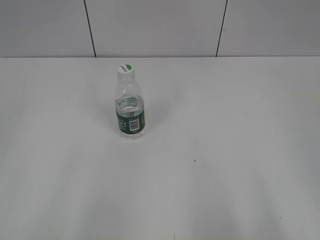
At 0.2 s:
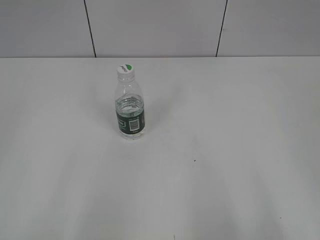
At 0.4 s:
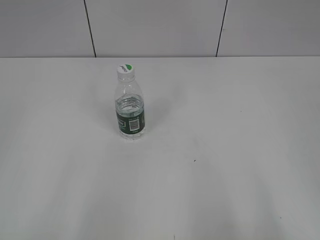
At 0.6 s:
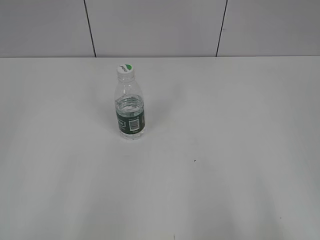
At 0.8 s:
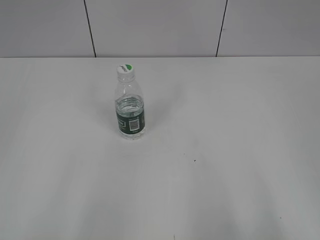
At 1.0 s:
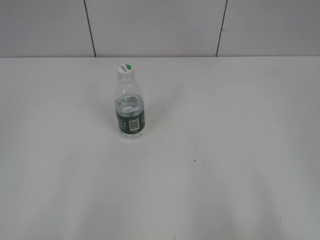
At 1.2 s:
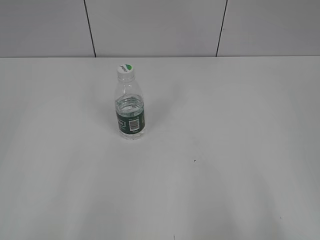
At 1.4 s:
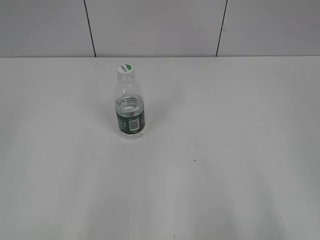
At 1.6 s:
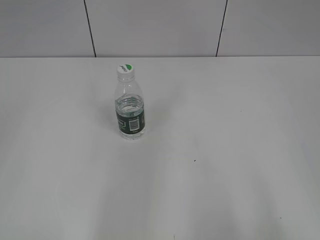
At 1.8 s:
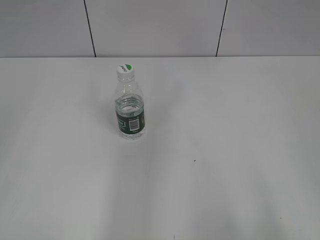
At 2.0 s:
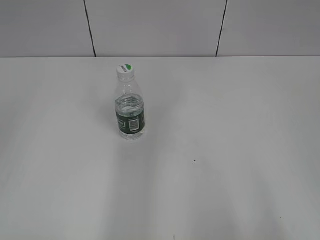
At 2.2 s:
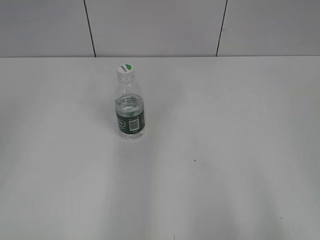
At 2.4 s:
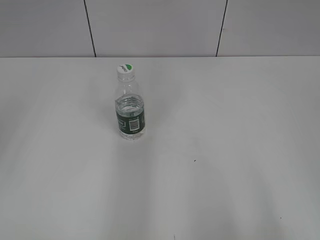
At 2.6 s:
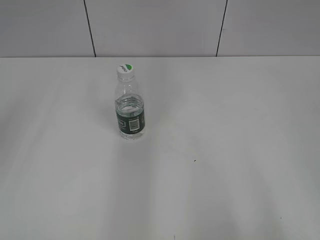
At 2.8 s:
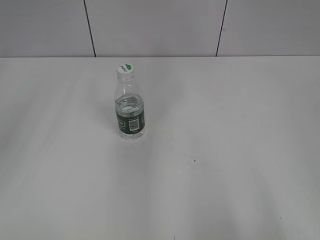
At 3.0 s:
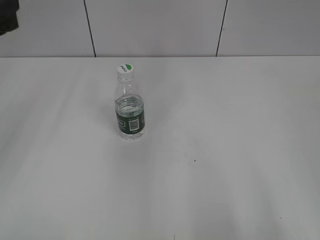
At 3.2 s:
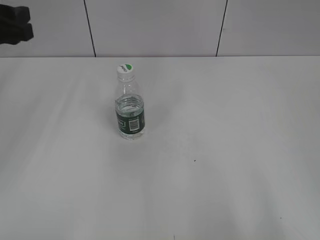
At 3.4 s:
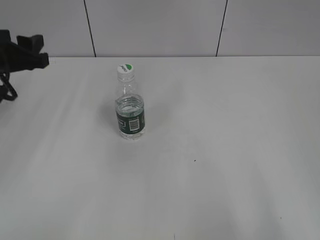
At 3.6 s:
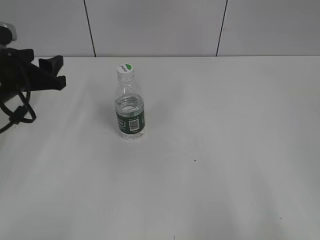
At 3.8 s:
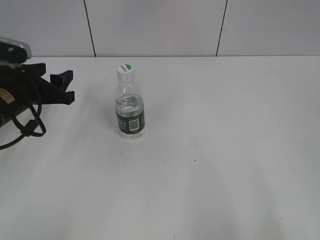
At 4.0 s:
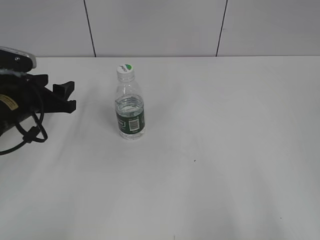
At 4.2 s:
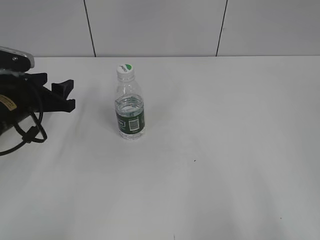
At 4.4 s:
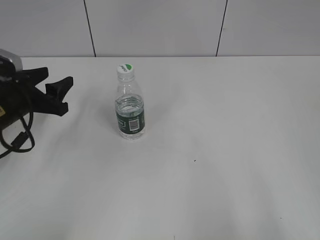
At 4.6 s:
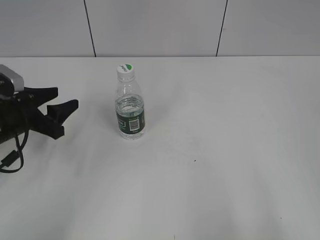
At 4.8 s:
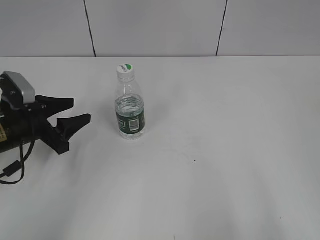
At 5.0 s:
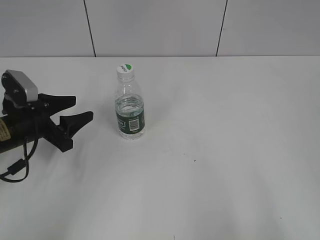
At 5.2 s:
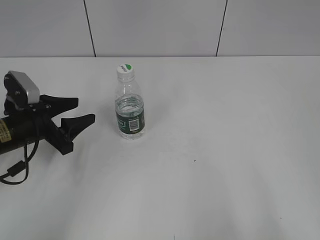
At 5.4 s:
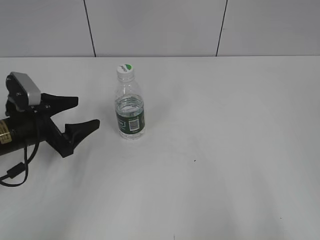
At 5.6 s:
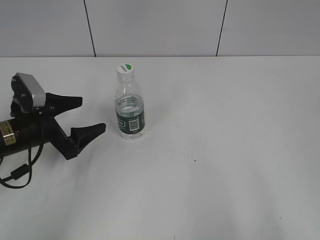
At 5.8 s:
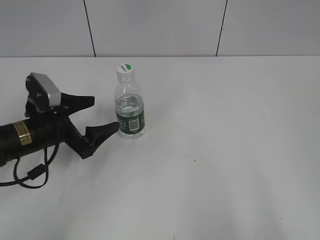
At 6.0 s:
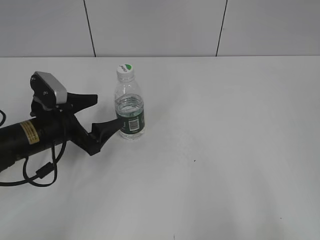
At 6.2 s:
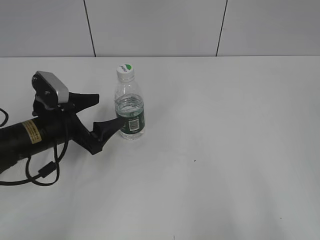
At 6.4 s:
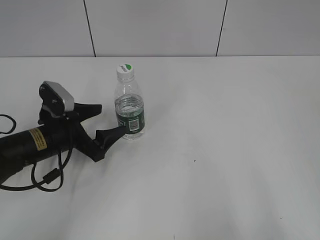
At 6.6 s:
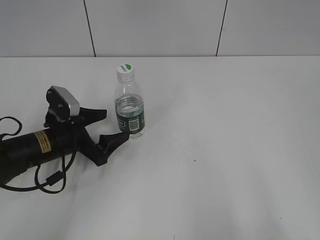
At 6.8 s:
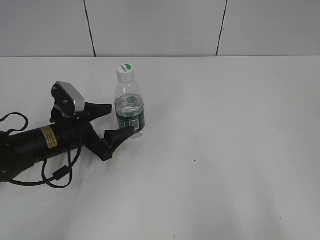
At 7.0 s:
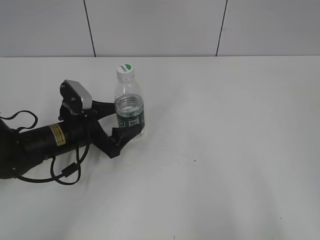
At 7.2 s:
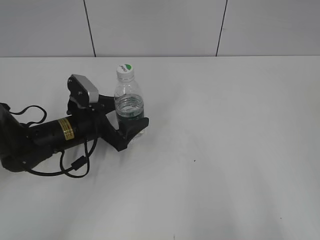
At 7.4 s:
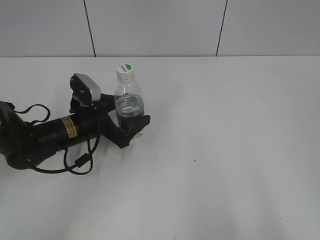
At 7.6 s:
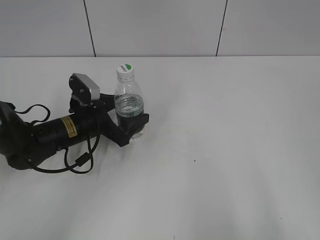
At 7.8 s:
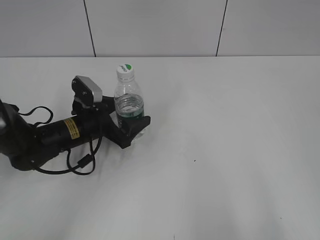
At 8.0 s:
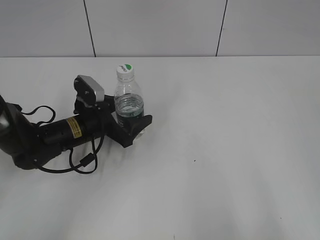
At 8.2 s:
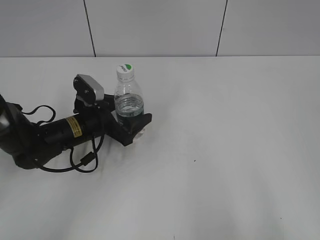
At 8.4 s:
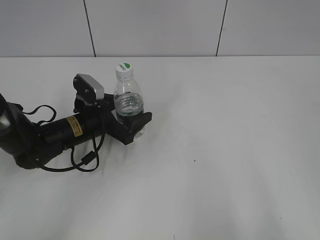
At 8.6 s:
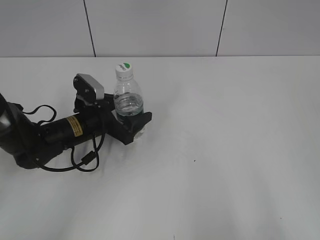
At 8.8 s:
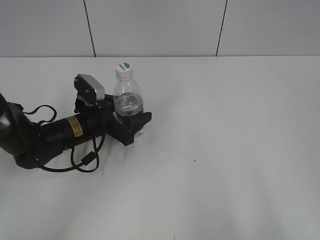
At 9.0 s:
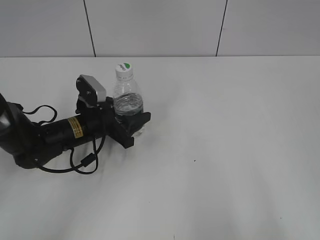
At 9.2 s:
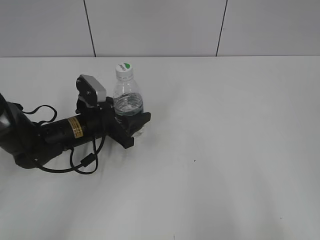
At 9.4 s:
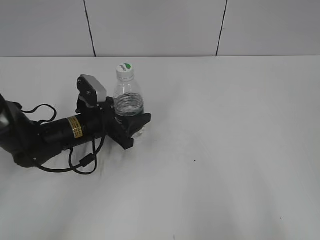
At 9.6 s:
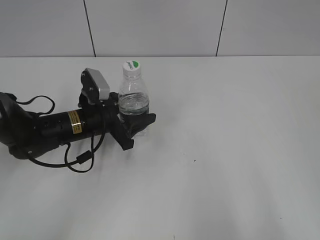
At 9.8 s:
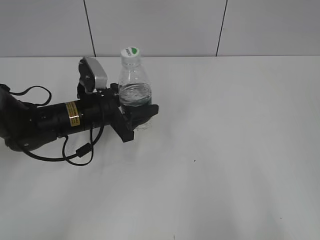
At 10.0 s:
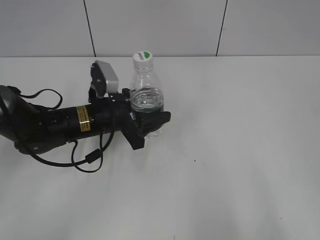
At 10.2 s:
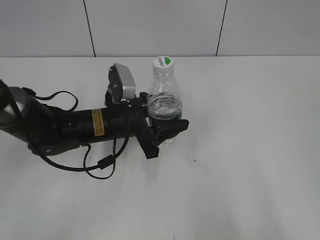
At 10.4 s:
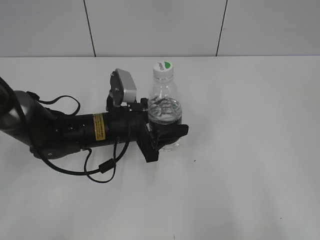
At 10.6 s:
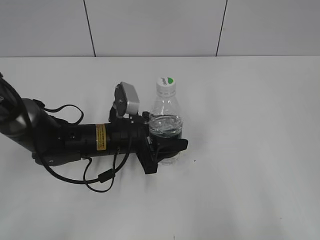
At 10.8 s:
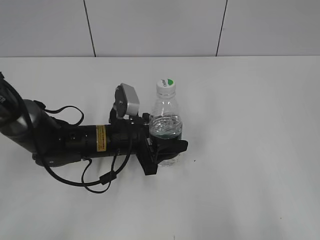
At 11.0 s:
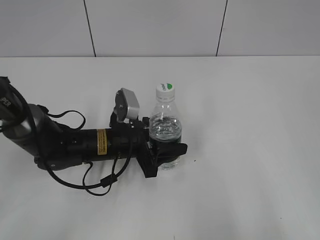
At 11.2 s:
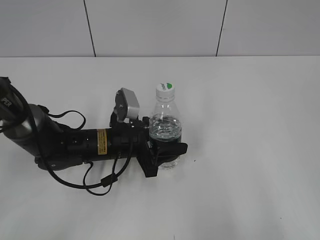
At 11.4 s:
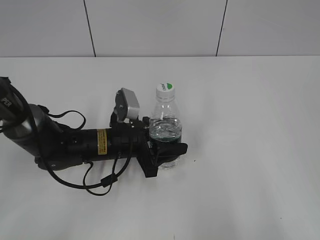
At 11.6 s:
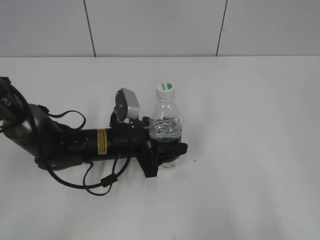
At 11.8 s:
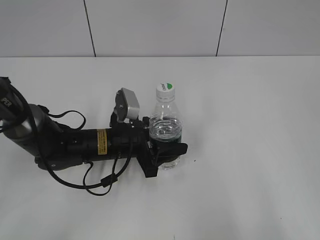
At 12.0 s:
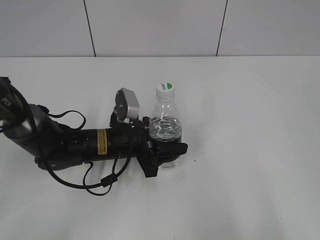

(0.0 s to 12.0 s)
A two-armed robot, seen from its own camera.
Step, 0.0 s - 9.4 s: Grasp the bottle and move it to the center of the table with the left gripper.
1.6 s - 3.0 s: The left gripper heads forward, covering roughly 25 cm.
3.0 s - 4.4 s: The left gripper shifts some 15 cm downward.
4.4 s - 6.0 s: The left gripper is displaced to the right by some 5 cm, and opens its fingers.
6.0 s - 7.6 s: The left gripper changes place by approximately 5 cm.
7.6 s - 9.0 s: The left gripper closes up.
9.0 s - 10.4 s: The left gripper goes about 5 cm to the right.
10.4 s - 12.0 s: The grippers make only small movements.

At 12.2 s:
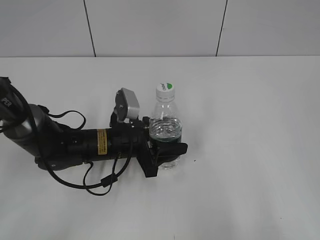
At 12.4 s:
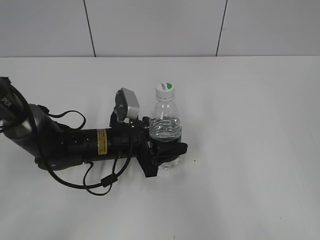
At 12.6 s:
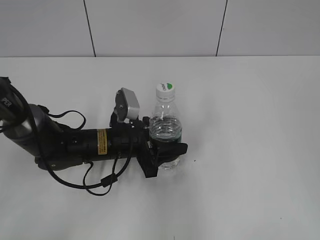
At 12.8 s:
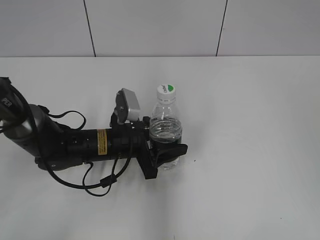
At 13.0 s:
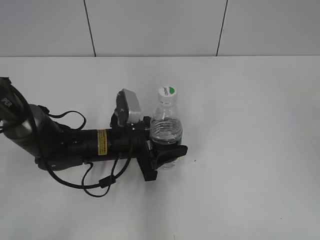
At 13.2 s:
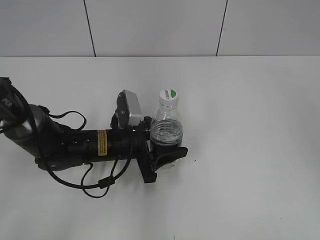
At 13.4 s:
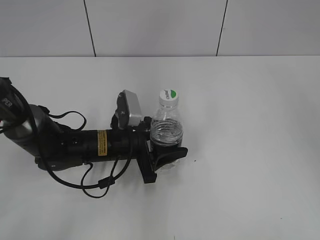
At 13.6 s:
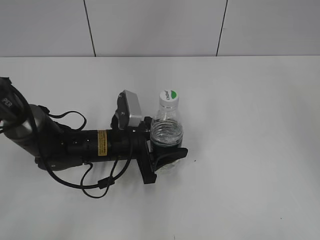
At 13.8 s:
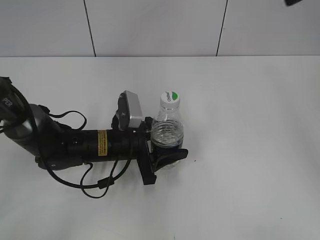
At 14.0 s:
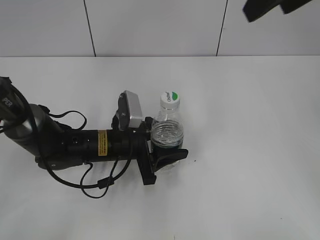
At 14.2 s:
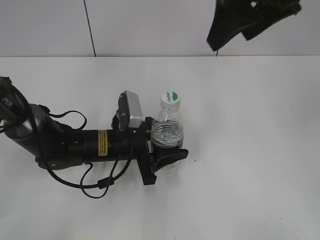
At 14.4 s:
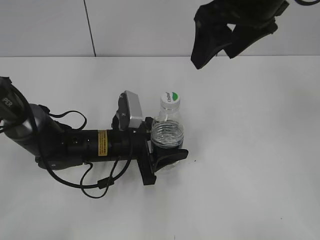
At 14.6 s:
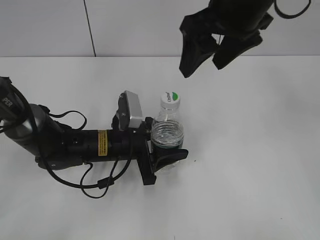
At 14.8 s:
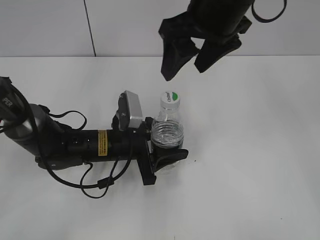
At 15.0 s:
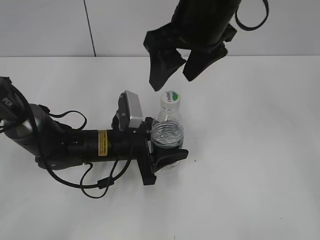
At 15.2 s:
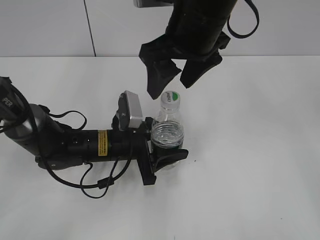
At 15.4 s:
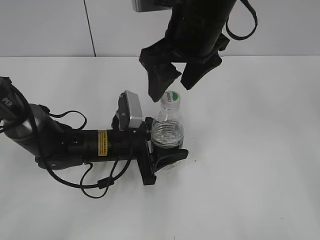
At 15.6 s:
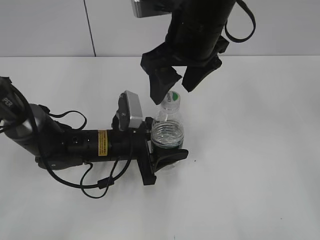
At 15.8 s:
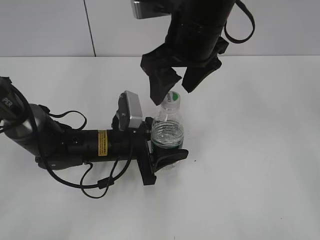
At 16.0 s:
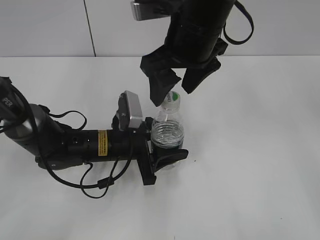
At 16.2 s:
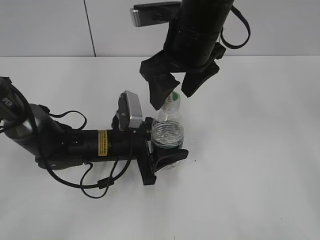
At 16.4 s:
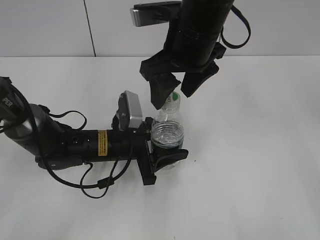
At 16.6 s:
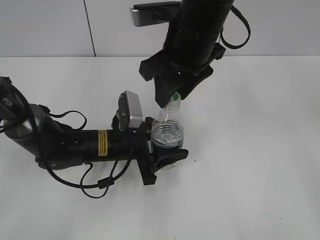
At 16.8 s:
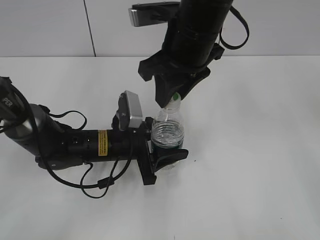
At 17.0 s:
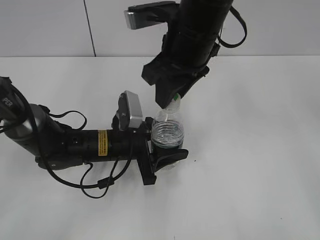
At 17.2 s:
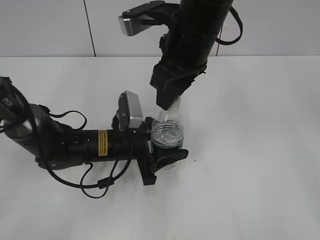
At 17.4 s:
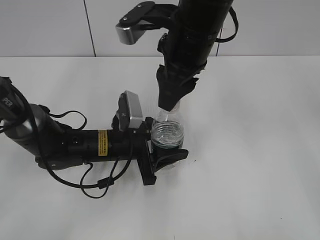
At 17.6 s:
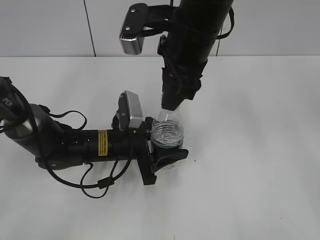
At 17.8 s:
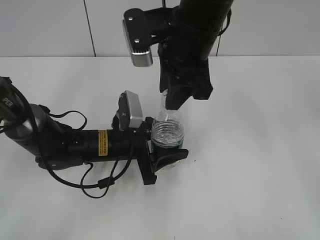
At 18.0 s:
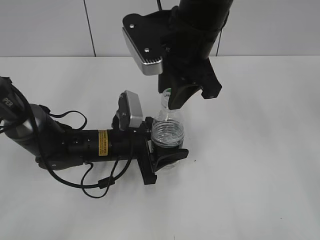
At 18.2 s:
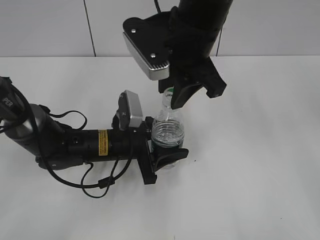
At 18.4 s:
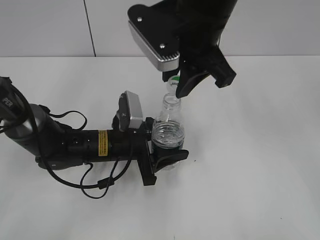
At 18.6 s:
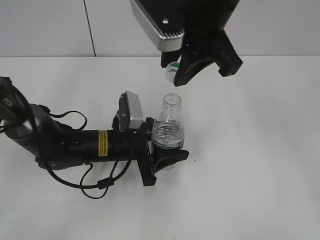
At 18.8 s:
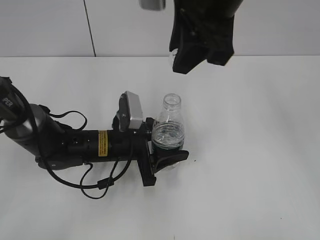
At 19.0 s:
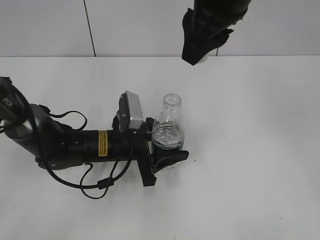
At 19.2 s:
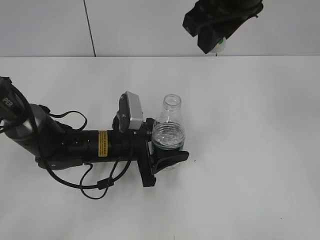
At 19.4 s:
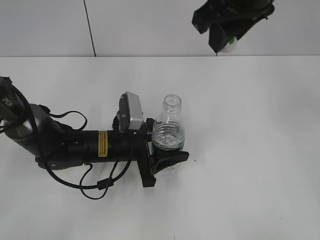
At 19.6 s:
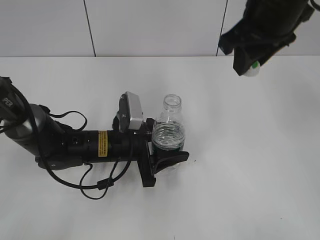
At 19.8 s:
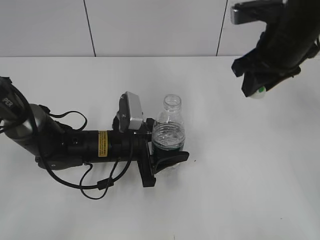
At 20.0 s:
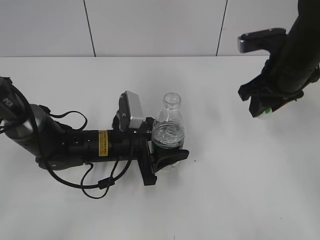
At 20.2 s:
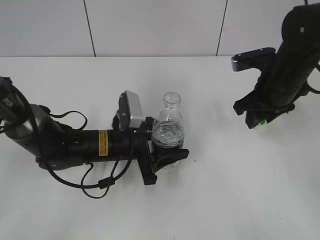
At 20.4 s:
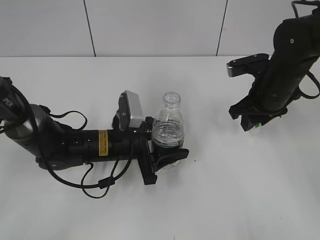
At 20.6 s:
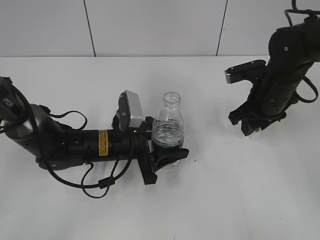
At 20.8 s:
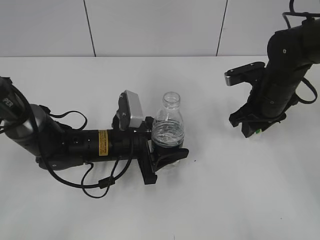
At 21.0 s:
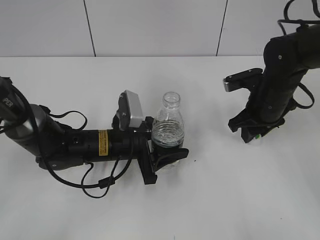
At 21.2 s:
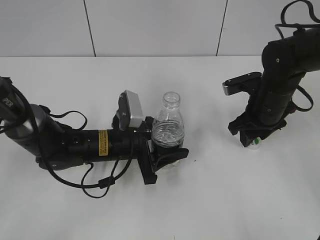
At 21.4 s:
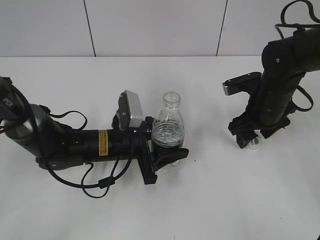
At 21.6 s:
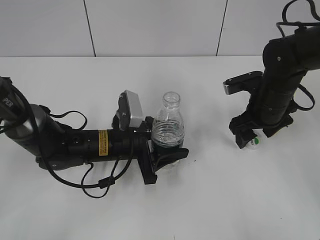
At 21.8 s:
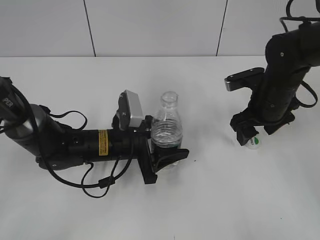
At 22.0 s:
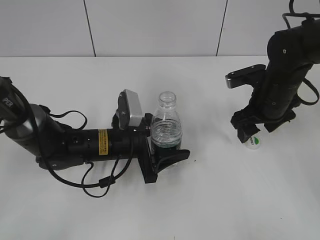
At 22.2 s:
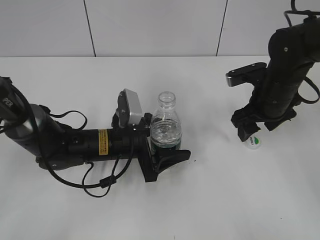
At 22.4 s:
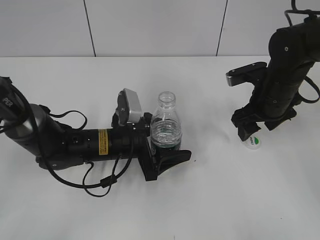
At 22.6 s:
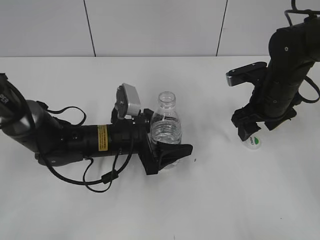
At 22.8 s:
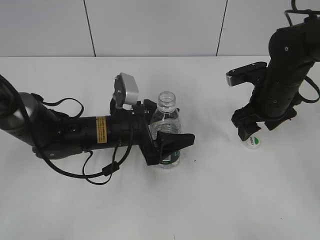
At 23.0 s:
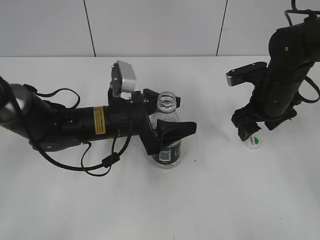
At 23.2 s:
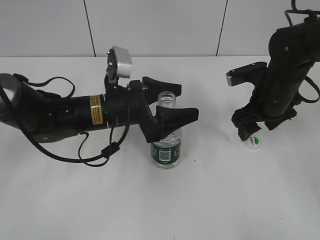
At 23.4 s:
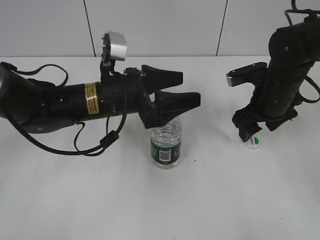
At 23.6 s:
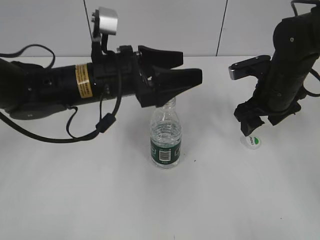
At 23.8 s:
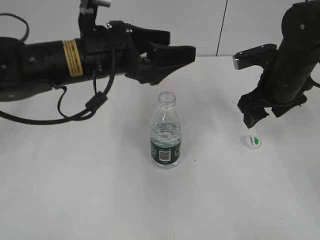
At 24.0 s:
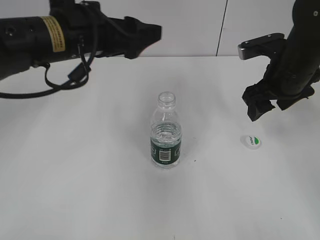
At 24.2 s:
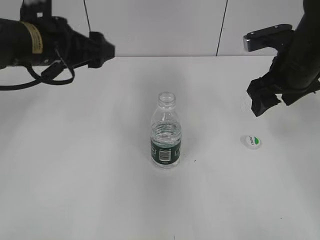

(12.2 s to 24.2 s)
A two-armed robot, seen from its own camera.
Step, 14.0 s - 18.6 s: Unscrew the bottle cap with the right gripper while holding the bottle with the left gripper.
Step, 18.8 s - 21.6 s: Place the bottle cap on the table with the right gripper.
Step, 22.0 s - 23.2 s: Place the bottle on the table with the left gripper.
12.2 s - 13.8 s: The right gripper shifts roughly 30 cm forward and upward.
13.8 s - 15.2 s: The right gripper moves to the left and downward, some 20 cm.
15.2 s - 16.6 s: The right gripper closes.
18.2 s - 19.8 s: The right gripper heads to the right, covering some 15 cm.
19.8 s - 21.2 s: The right gripper moves downward, about 15 cm.
21.2 s - 22.6 s: The right gripper opens its fingers. The left gripper opens its fingers.
22.6 s - 24.2 s: The left gripper travels upward and to the left by roughly 20 cm. The right gripper heads upward, covering some 10 cm.
